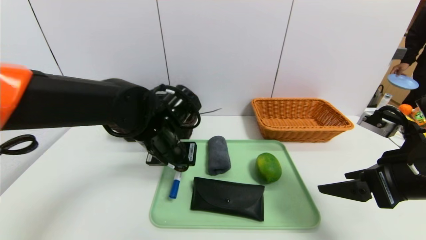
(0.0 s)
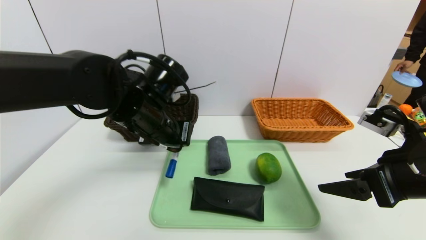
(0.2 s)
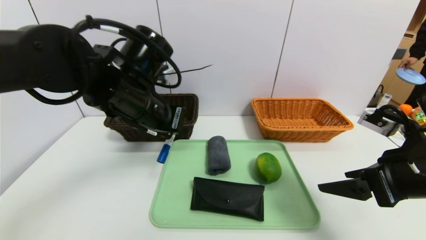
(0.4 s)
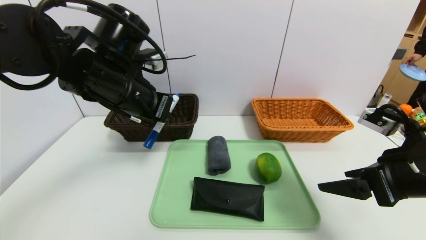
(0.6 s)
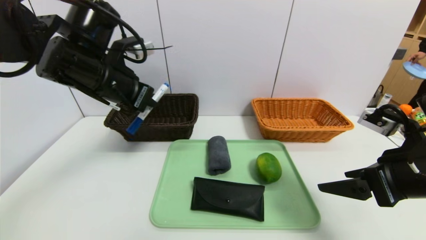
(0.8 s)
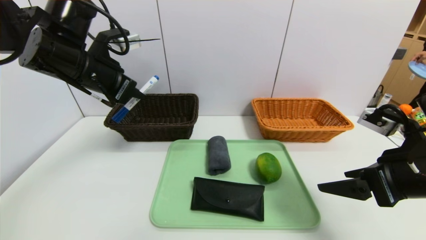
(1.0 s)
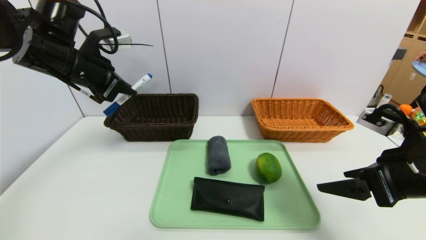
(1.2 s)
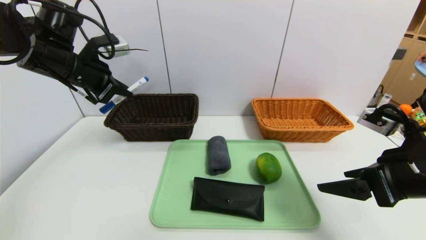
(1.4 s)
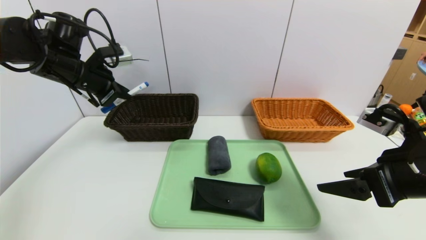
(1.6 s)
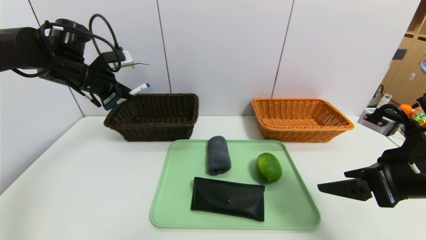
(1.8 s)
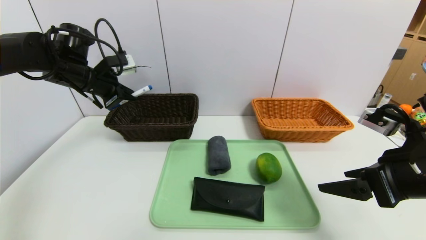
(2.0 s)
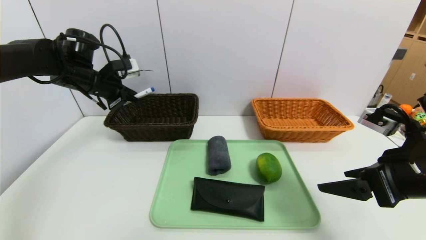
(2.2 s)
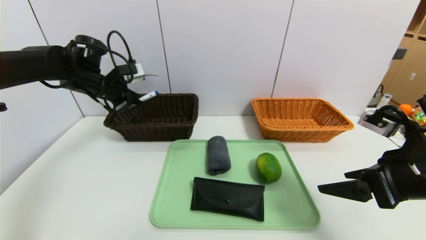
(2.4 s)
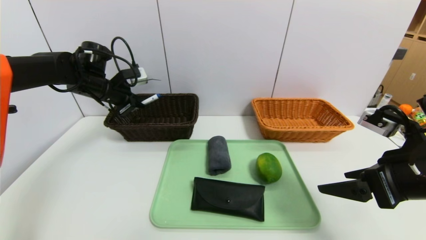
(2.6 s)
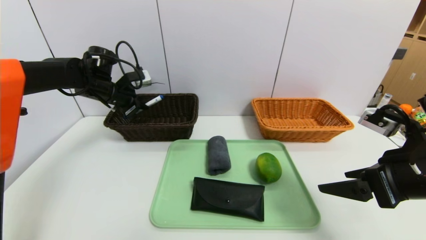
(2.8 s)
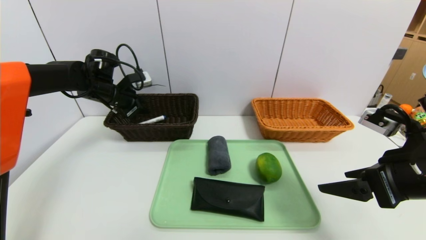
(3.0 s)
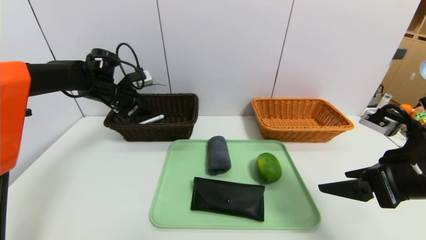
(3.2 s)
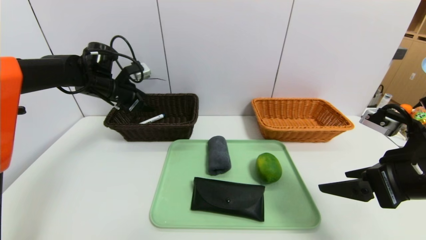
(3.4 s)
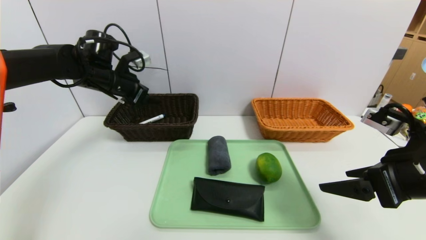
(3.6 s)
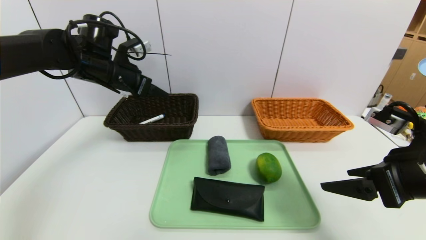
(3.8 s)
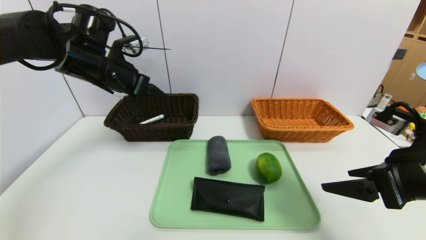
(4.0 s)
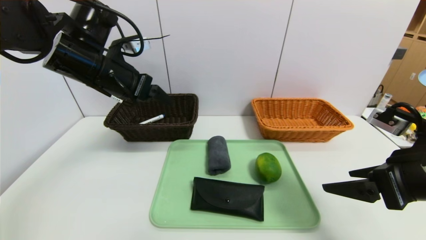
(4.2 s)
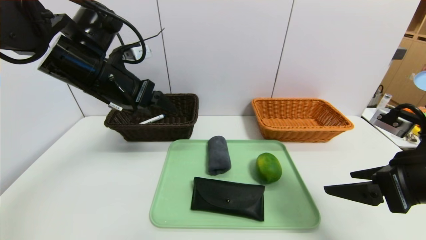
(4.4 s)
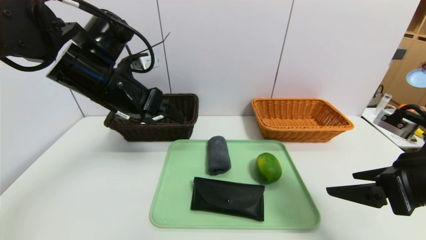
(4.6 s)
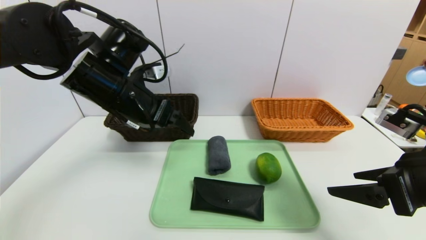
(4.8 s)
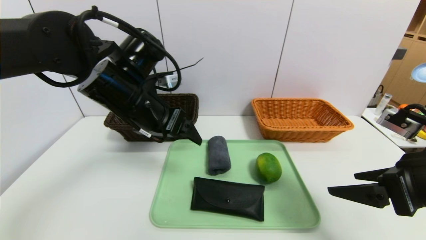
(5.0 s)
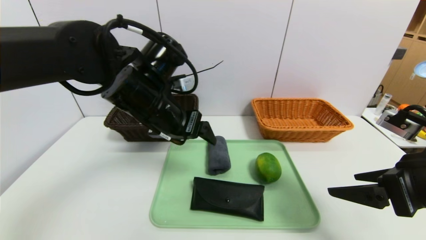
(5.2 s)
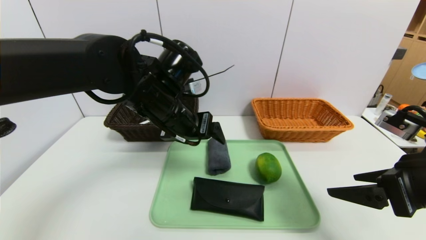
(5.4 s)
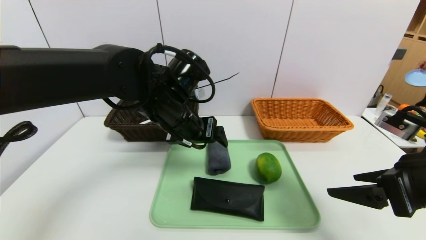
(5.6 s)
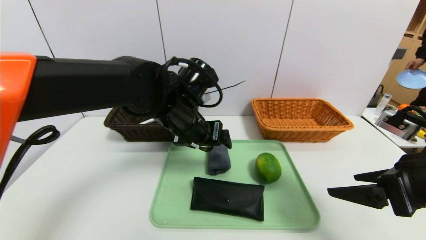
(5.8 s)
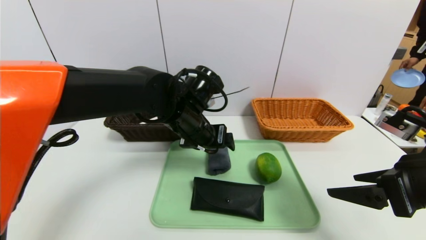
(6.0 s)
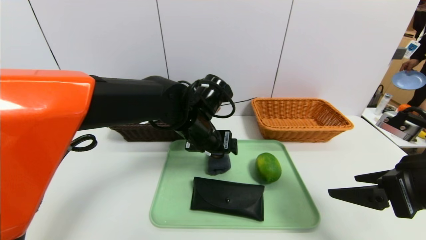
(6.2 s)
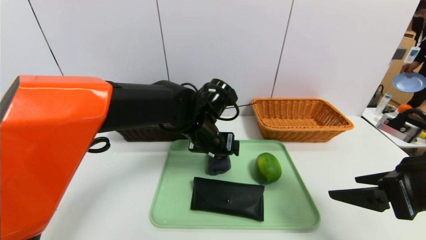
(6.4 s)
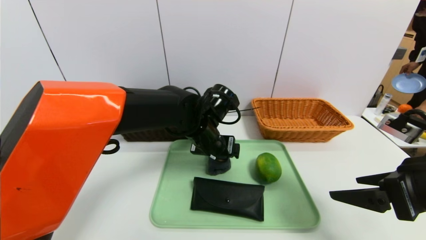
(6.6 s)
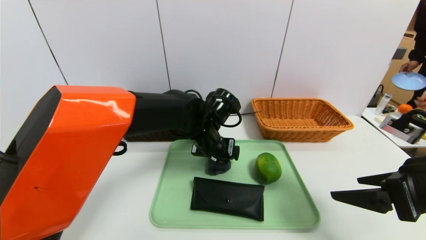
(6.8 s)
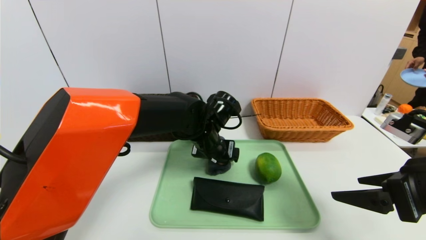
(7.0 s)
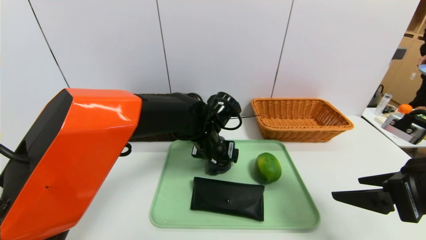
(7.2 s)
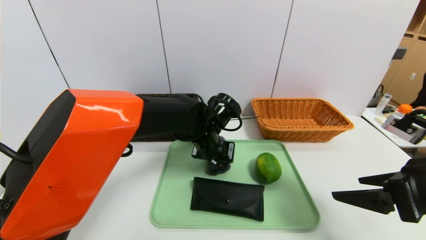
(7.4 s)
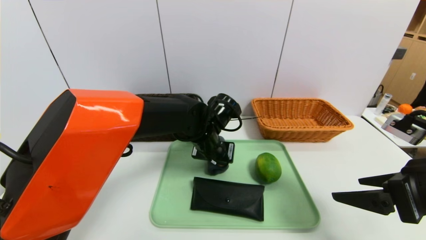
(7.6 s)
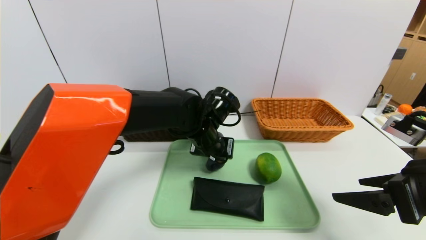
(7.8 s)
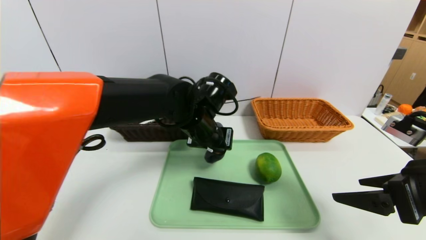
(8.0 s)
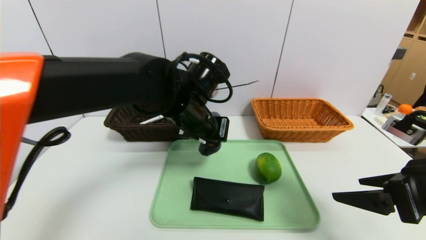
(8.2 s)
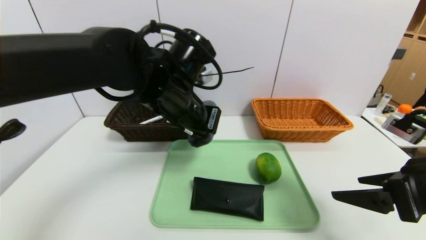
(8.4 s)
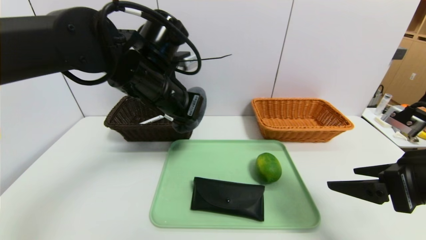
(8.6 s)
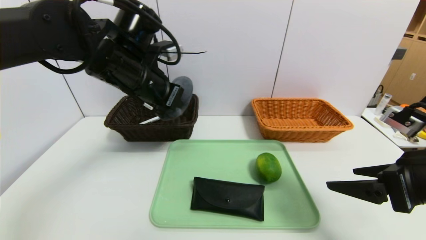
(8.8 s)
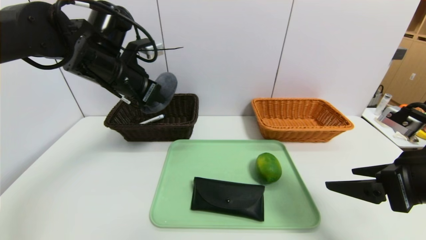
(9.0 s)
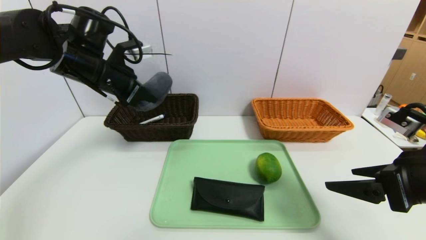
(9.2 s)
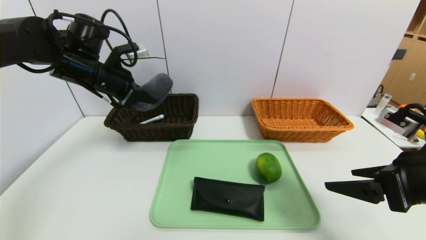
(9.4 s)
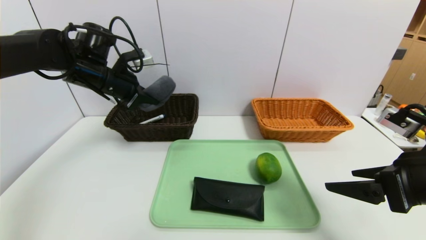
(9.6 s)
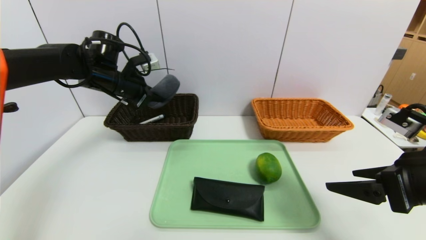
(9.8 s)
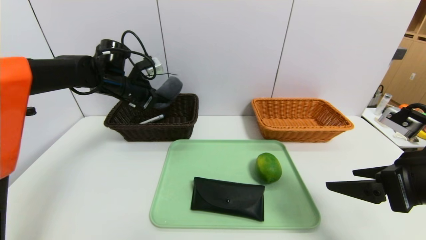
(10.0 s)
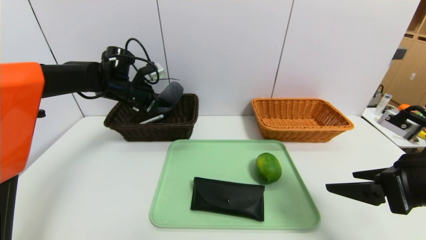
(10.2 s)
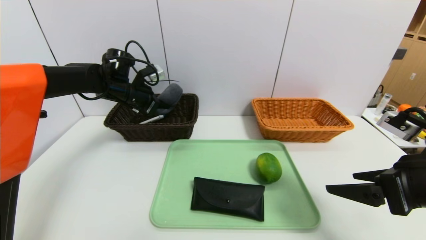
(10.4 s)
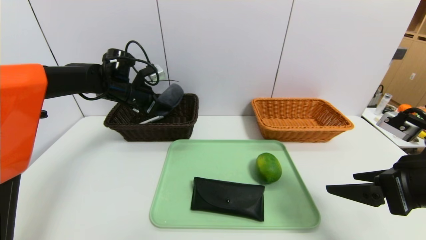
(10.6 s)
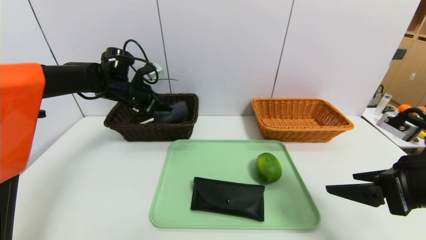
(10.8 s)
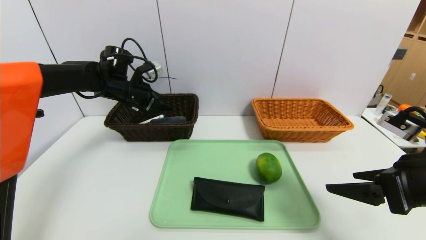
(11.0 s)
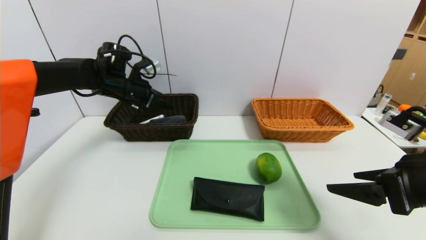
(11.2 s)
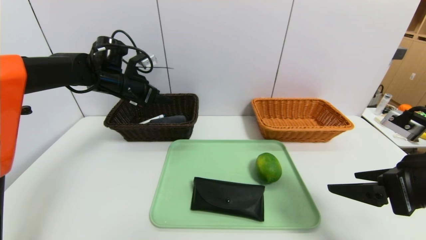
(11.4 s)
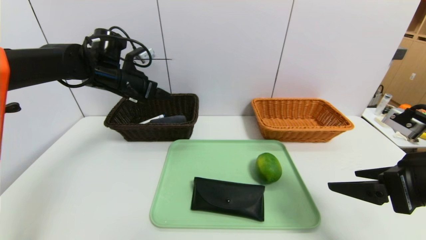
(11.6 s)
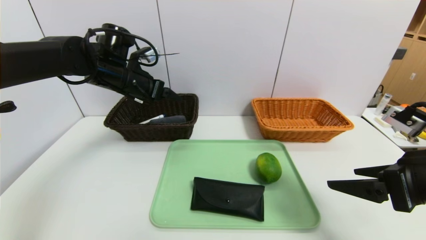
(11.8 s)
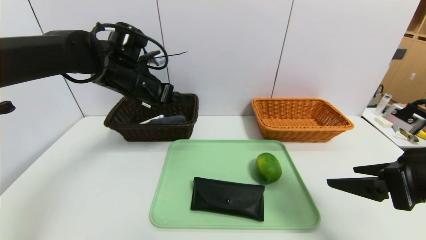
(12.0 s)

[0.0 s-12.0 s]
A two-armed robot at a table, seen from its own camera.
Task of the whole recording: place the food in the right basket with the right gripper, and place the non food items in the left basket with the left gripper.
Step, 0.0 to 3.2 s: Grasp the blue marker and put it in the left basket.
Step, 3.4 to 10.8 s: Grasp the grey towel and put it in the left basket.
0.0 to 1.6 s: The left gripper travels to the left, upward and forward by some 20 cm.
1.6 to 3.0 s: The left gripper travels downward and forward by about 10 cm, and opens.
3.0 to 4.4 s: The left gripper heads backward, upward and to the right, covering some 20 cm, and opens.
4.4 to 6.0 s: The left gripper shifts some 15 cm to the right and downward.
6.0 to 7.6 s: The left gripper goes about 5 cm downward, and closes.
7.6 to 9.0 s: The left gripper shifts some 25 cm to the left and upward, and closes its fingers.
9.0 to 10.4 s: The left gripper heads forward and downward, covering roughly 15 cm.
10.4 to 12.0 s: The left gripper shifts some 10 cm backward, to the right and upward, and opens its fingers.

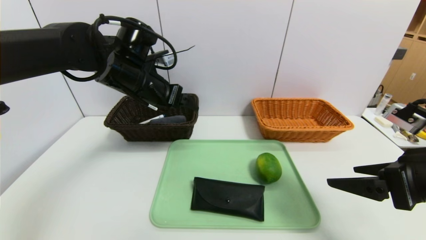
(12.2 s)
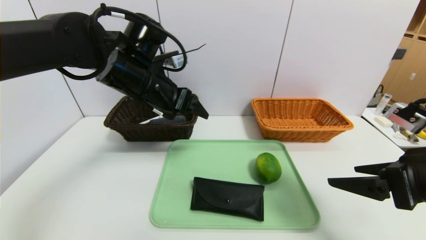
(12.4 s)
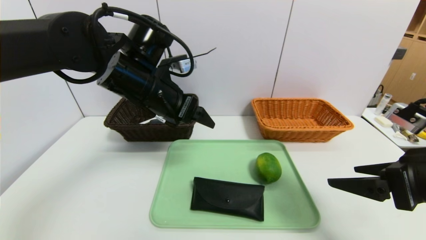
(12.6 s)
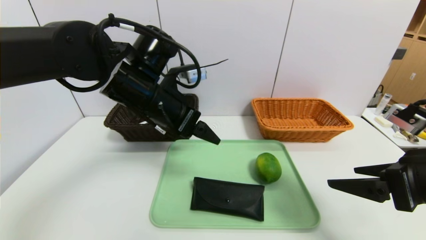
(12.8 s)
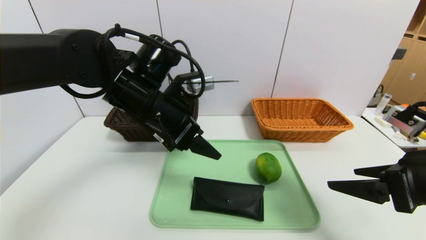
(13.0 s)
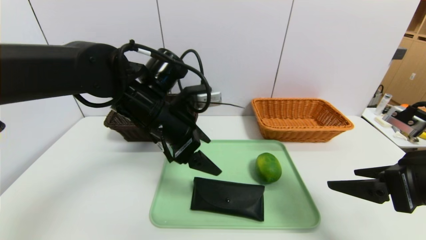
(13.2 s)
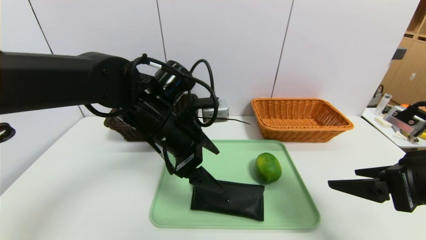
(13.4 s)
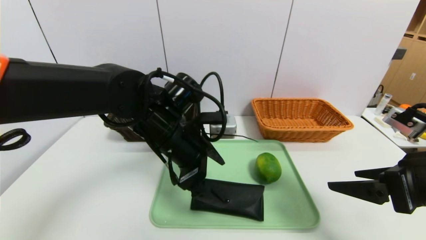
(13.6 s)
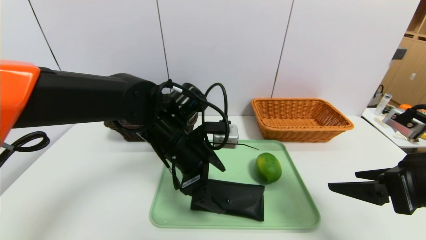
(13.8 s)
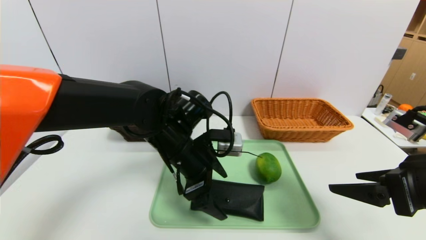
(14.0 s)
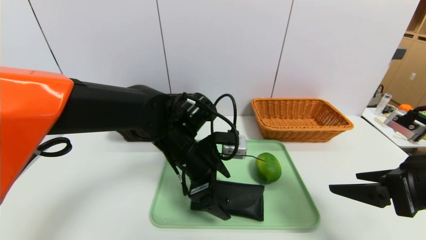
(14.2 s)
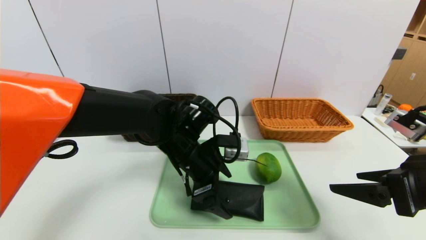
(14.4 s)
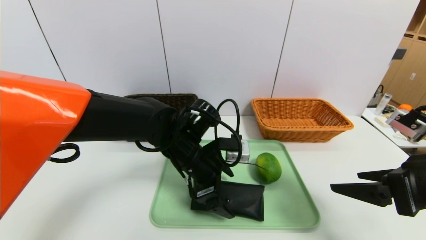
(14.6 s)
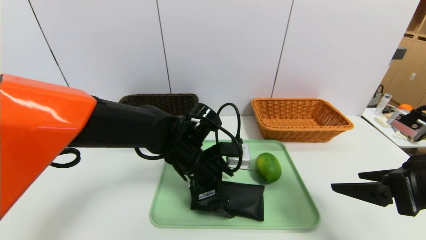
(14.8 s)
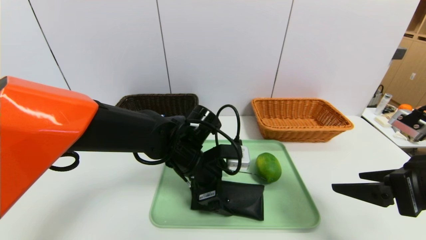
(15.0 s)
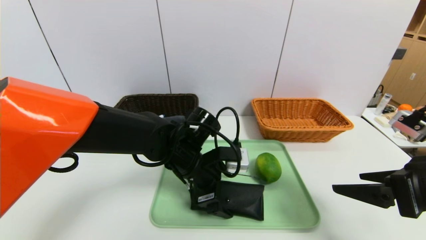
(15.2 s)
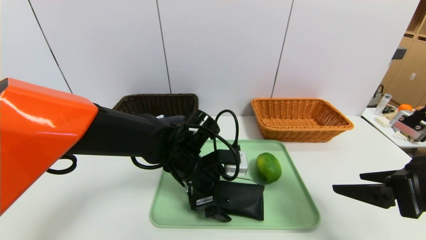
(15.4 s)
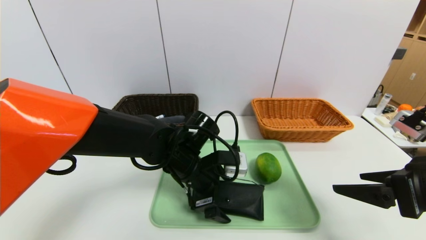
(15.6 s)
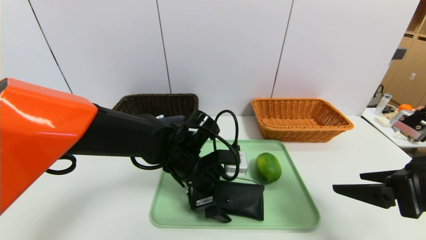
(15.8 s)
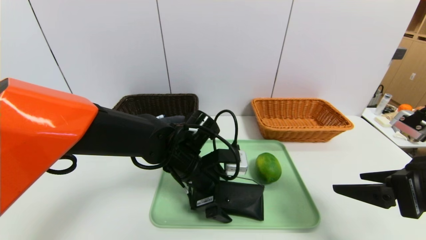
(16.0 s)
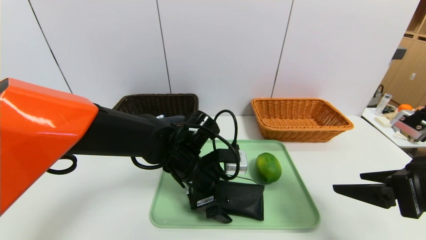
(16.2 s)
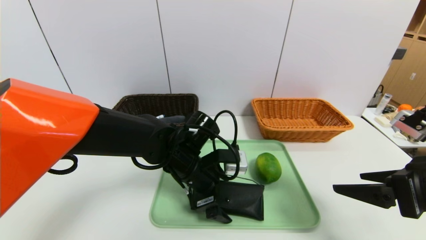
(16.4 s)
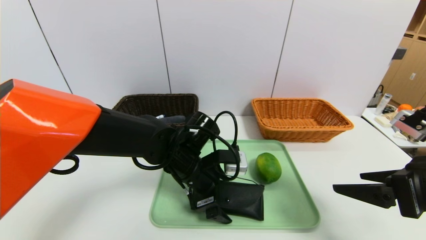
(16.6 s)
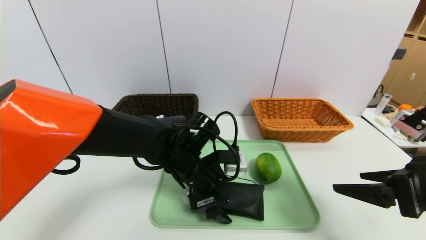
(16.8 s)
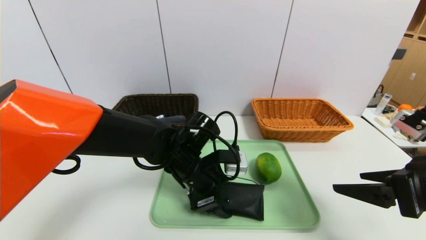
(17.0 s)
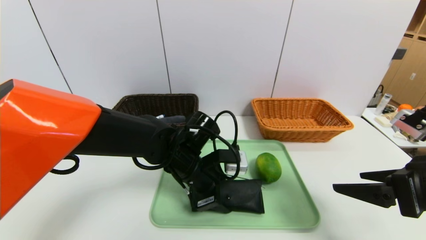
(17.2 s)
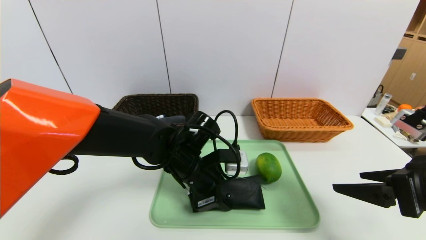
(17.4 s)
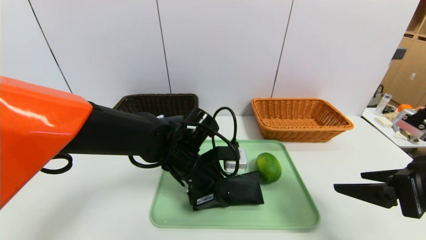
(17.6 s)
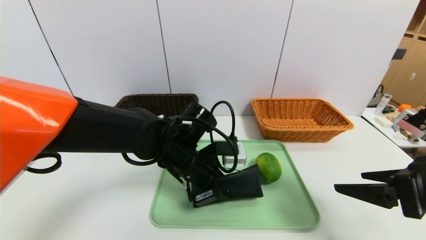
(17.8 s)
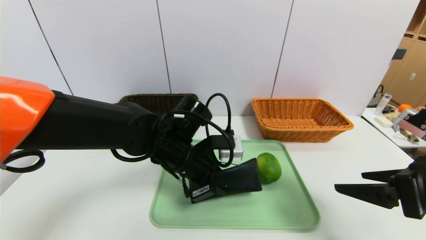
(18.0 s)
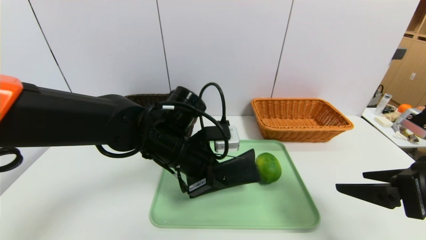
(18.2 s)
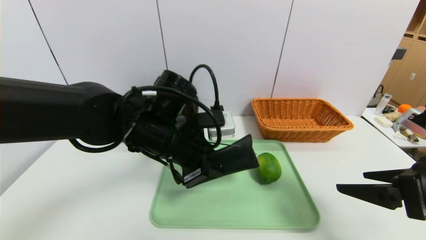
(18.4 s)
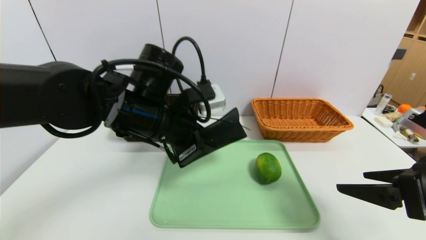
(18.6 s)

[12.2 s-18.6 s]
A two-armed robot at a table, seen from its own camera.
Task of the whole recording: place the food in the right basket with the right gripper, and place the non food items in the left basket with the left gripper.
12.2 to 13.8 s: The left gripper travels downward, to the right and backward by about 15 cm.
13.8 to 15.4 s: The left gripper shifts about 5 cm downward.
15.4 to 17.0 s: Neither gripper changes place.
17.0 to 18.6 s: The left gripper heads upward, covering some 10 cm, and closes.
